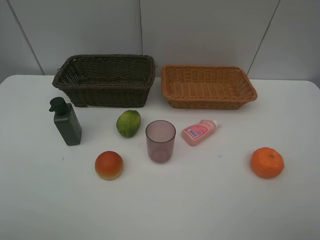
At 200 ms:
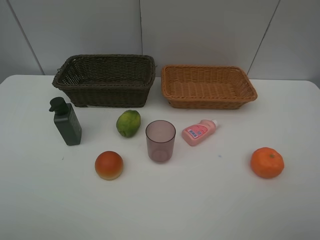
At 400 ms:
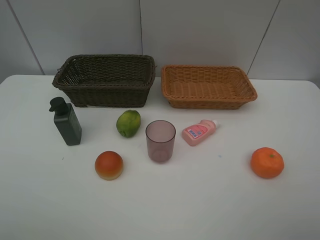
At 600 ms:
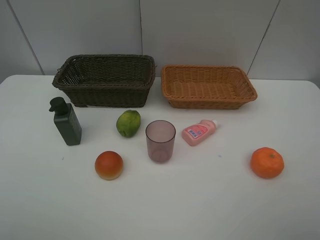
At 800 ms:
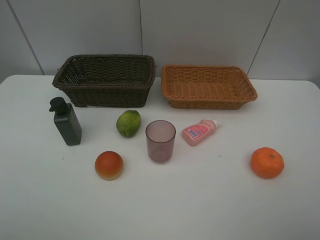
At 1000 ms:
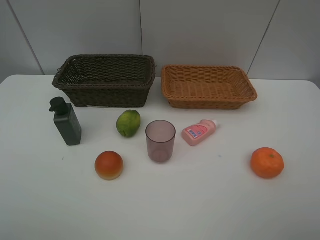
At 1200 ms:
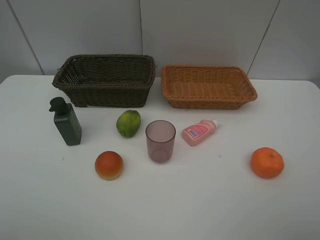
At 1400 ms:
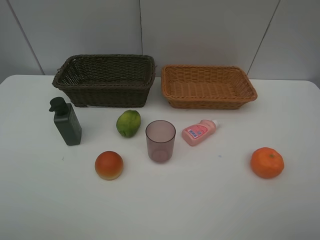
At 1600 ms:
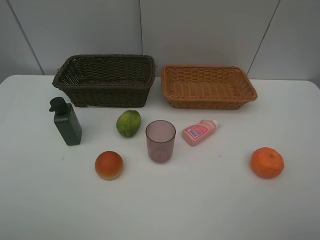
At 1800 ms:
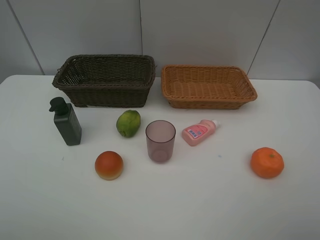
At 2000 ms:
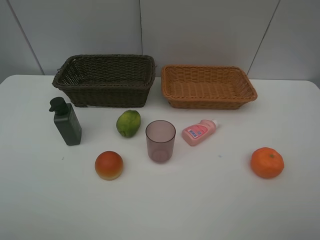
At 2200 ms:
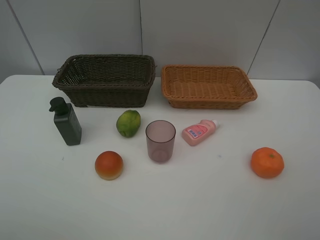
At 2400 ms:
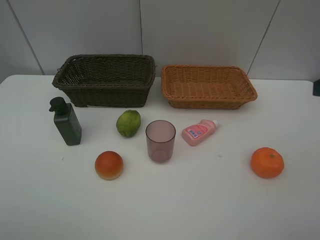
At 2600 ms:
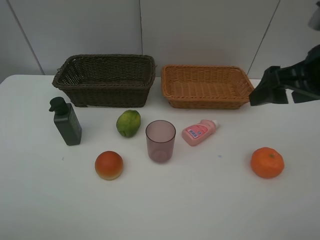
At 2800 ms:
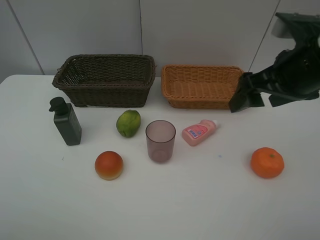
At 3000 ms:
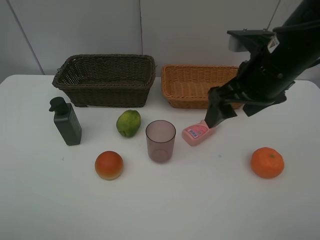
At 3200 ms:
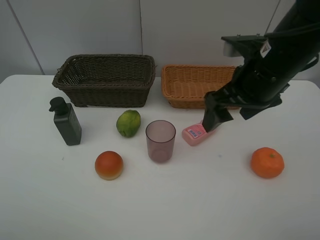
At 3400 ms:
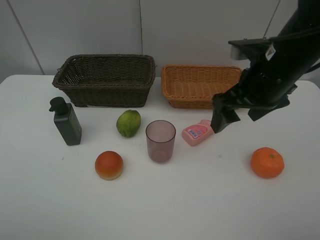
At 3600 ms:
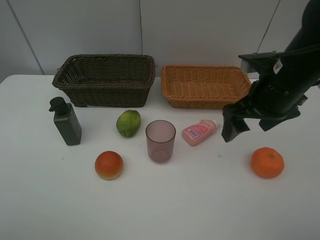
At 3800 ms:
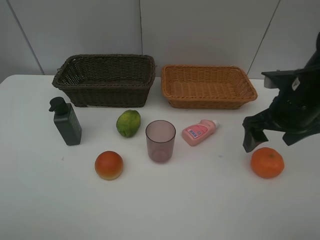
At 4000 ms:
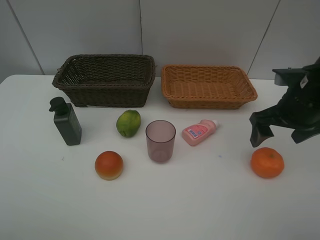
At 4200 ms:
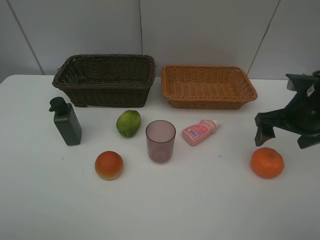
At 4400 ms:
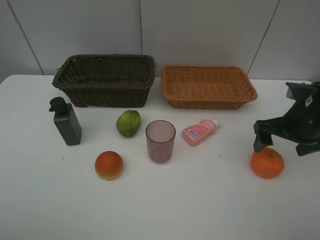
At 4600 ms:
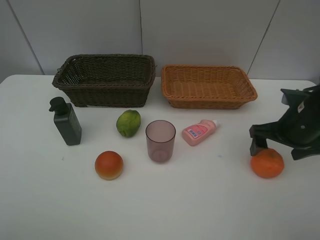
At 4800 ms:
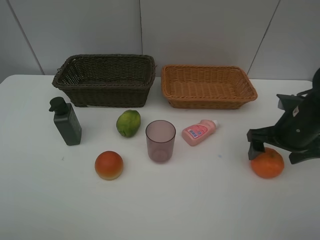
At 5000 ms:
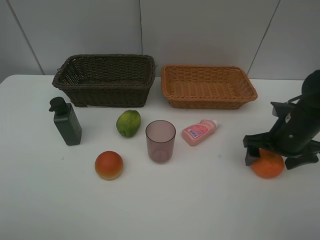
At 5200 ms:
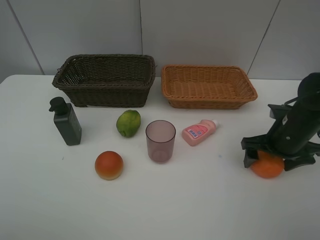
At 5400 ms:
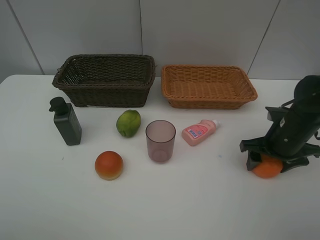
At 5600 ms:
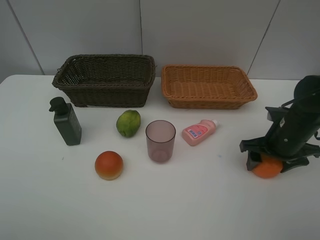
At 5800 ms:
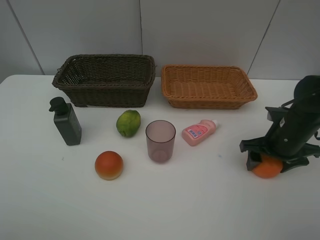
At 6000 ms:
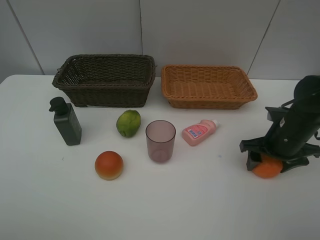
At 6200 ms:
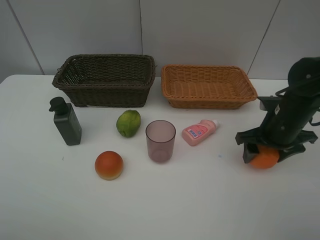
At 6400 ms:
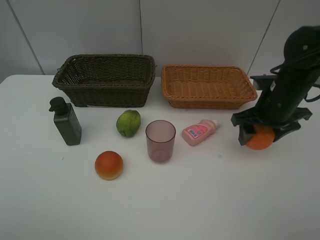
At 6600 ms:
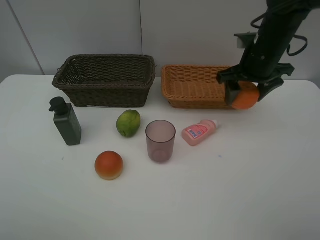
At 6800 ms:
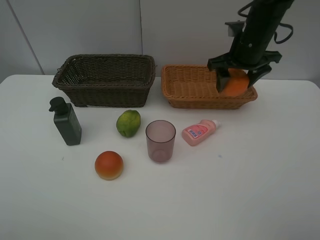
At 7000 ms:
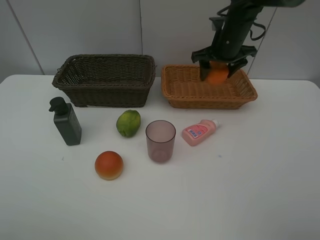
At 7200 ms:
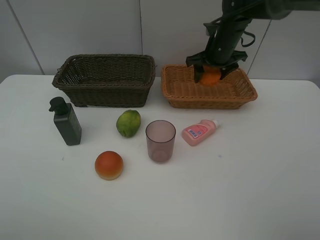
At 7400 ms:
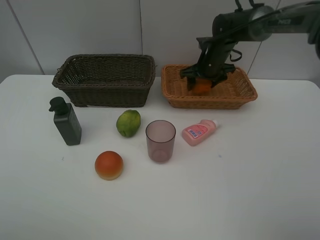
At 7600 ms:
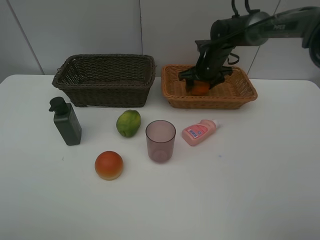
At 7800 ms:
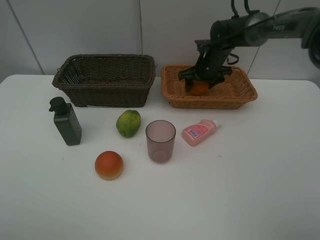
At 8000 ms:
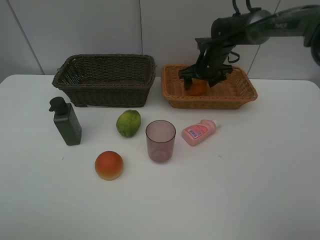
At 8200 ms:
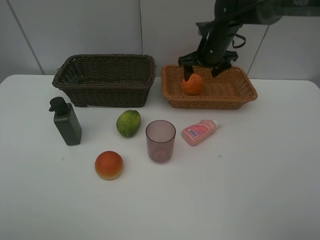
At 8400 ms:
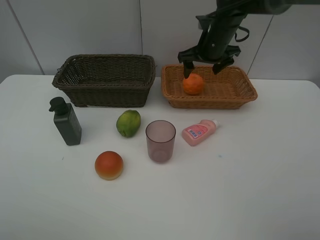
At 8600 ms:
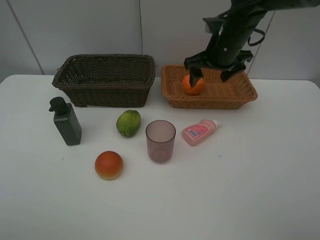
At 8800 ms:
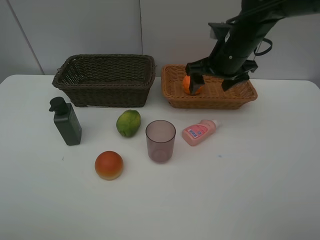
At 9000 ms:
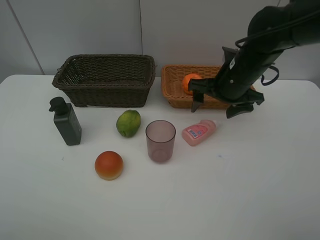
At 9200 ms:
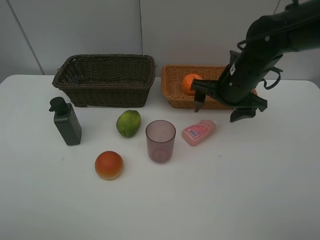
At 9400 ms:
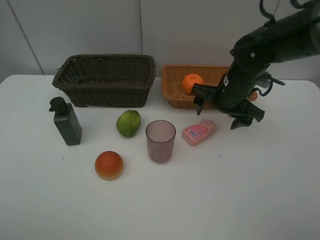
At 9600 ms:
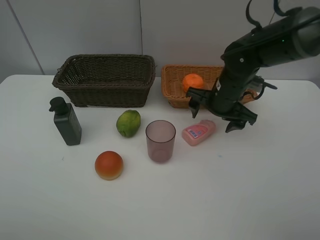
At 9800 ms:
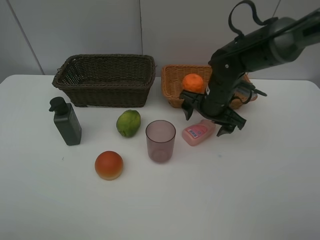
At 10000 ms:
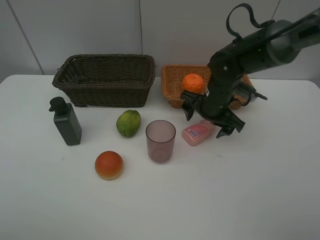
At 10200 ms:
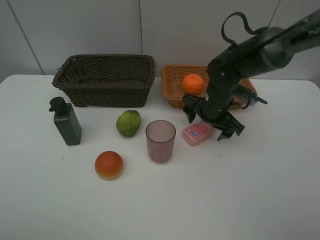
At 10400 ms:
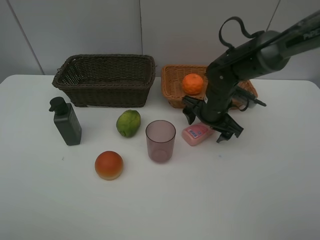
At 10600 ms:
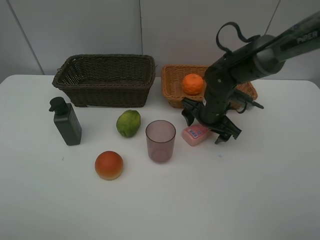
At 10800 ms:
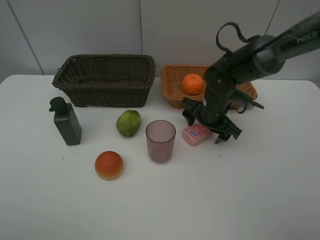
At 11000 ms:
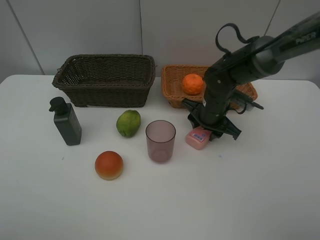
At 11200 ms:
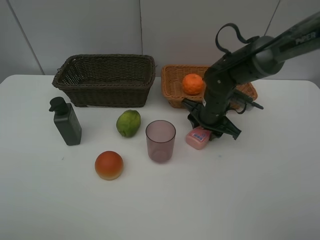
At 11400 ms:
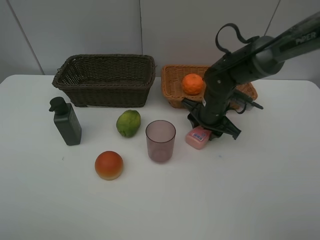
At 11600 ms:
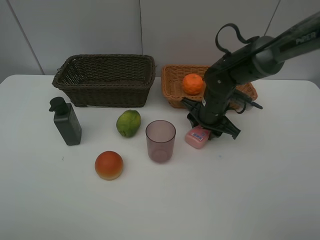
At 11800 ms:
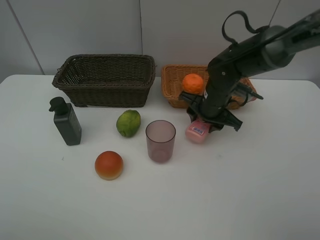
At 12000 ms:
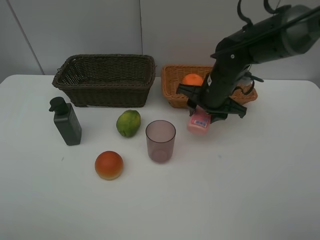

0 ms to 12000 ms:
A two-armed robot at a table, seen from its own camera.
Task of the whole recording: place multiple objects separately in different baskets.
0 ms to 1600 ms: Both grippers stay about where they are.
1600 ms to 3000 ms: The right gripper is displaced forward and to the left by about 30 cm.
3000 ms to 4400 ms: The right gripper is displaced to the right and downward by approximately 15 cm.
4400 ms to 6000 ms: The right gripper goes about 5 cm downward, and closes up.
6000 ms to 7600 ms: The right gripper is displaced forward and to the left by approximately 25 cm.
7600 ms to 9000 ms: The right gripper travels backward by approximately 15 cm, and opens its fingers.
9000 ms to 10400 ms: The right gripper heads downward, covering approximately 10 cm.
10400 ms to 12000 ms: The right gripper goes roughly 5 cm upward, and closes up.

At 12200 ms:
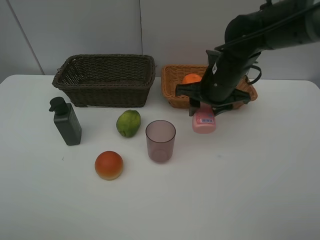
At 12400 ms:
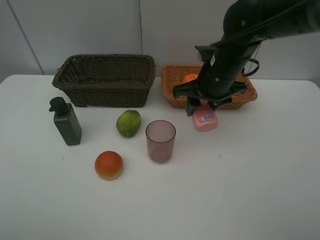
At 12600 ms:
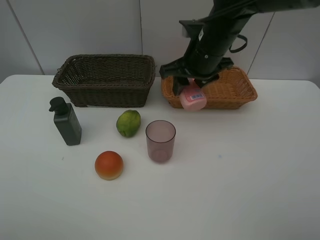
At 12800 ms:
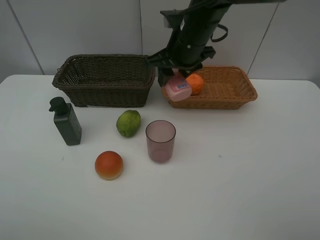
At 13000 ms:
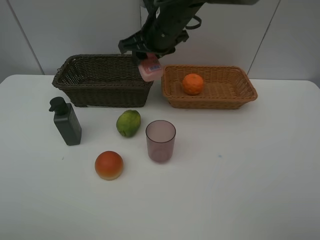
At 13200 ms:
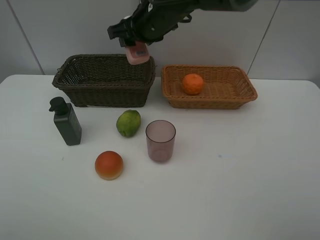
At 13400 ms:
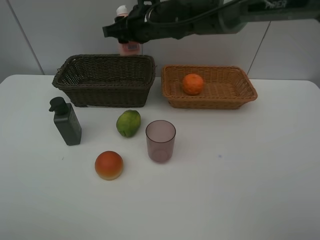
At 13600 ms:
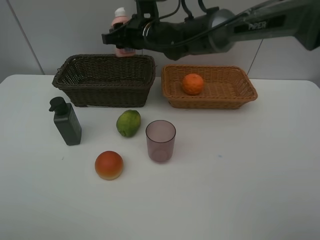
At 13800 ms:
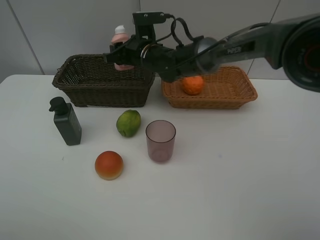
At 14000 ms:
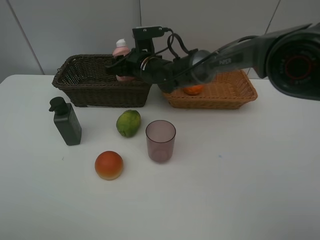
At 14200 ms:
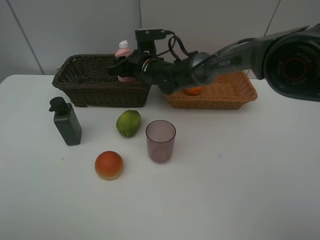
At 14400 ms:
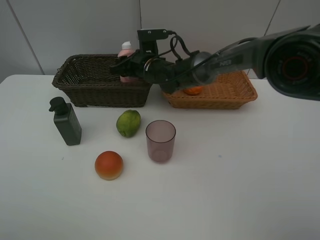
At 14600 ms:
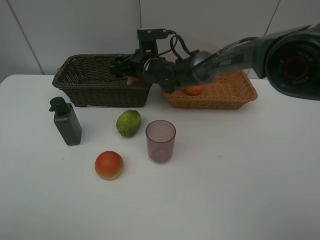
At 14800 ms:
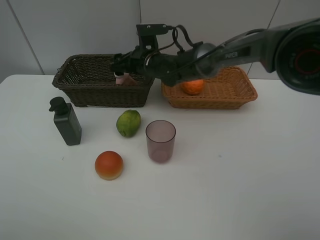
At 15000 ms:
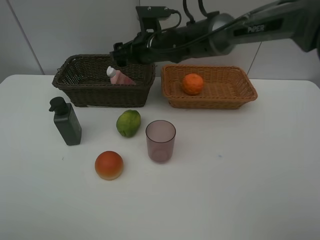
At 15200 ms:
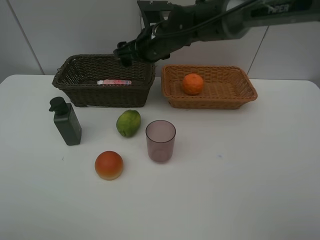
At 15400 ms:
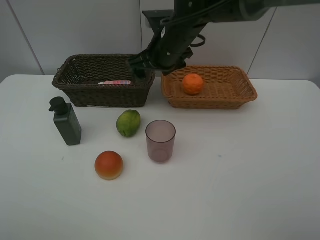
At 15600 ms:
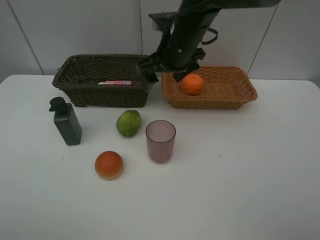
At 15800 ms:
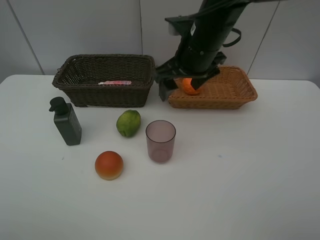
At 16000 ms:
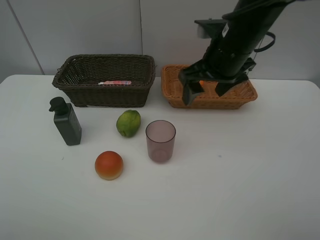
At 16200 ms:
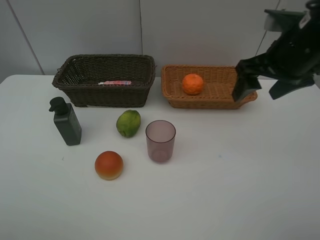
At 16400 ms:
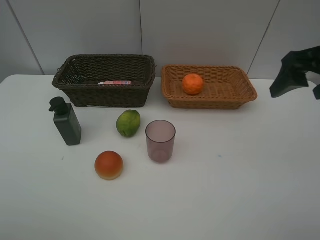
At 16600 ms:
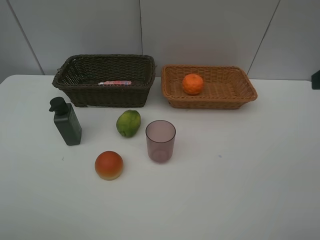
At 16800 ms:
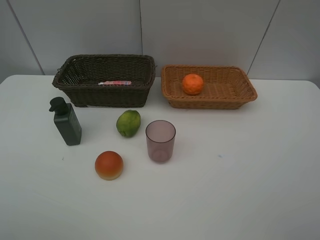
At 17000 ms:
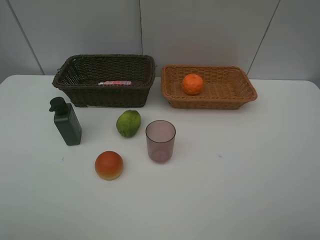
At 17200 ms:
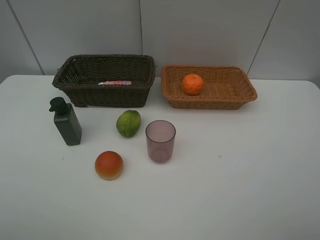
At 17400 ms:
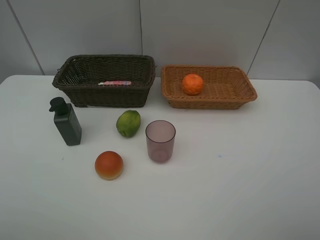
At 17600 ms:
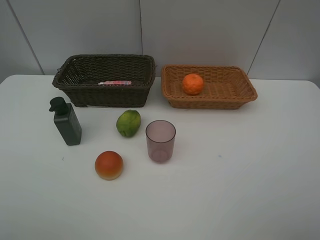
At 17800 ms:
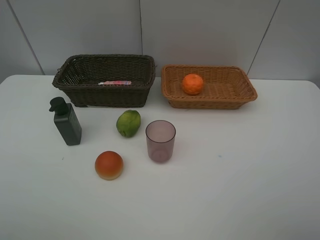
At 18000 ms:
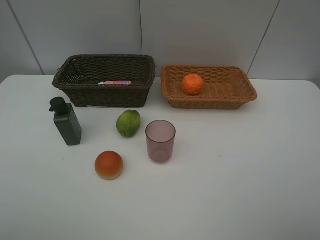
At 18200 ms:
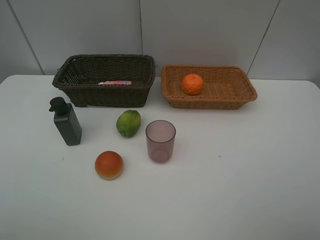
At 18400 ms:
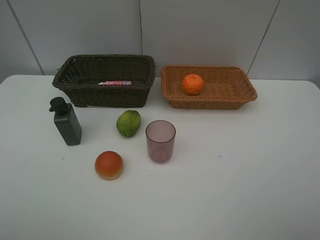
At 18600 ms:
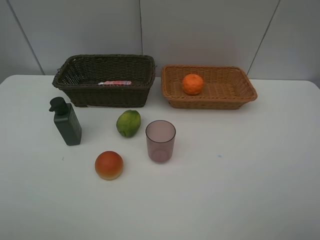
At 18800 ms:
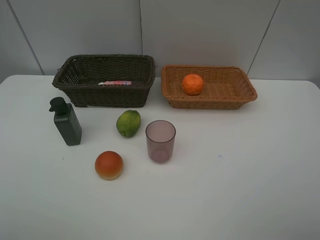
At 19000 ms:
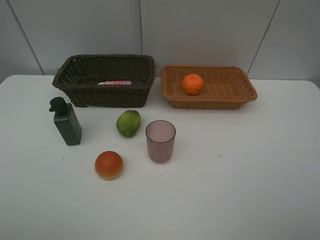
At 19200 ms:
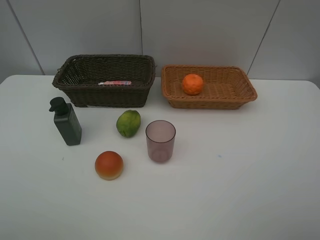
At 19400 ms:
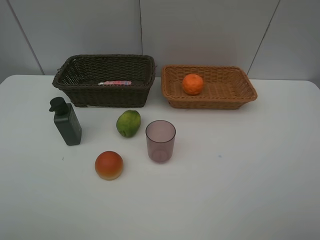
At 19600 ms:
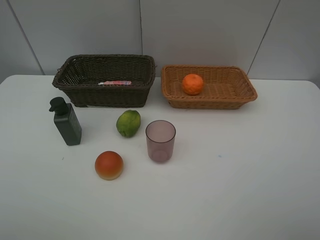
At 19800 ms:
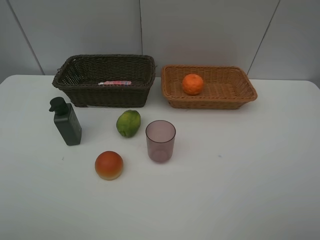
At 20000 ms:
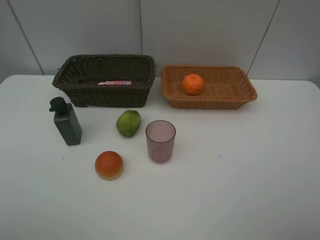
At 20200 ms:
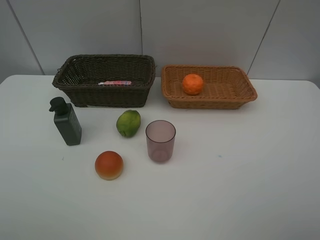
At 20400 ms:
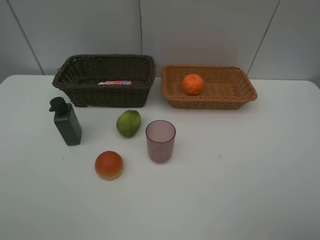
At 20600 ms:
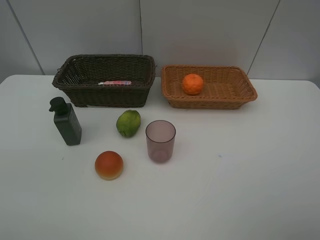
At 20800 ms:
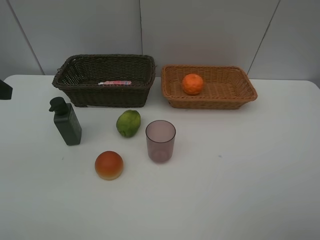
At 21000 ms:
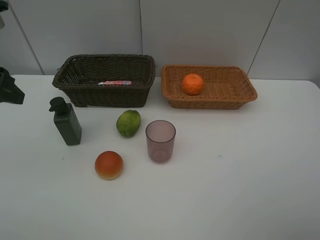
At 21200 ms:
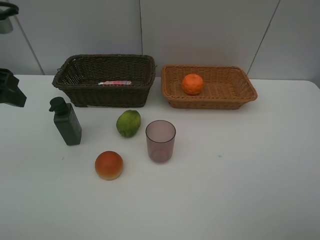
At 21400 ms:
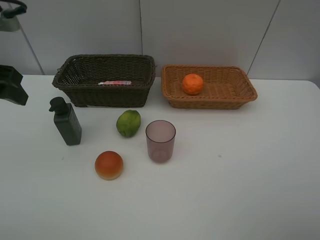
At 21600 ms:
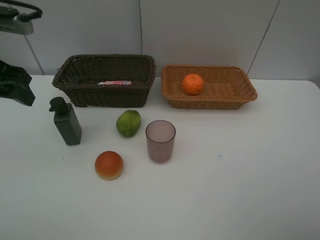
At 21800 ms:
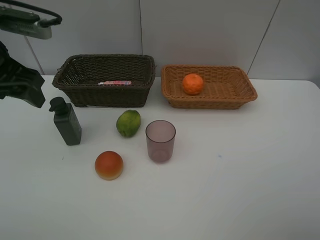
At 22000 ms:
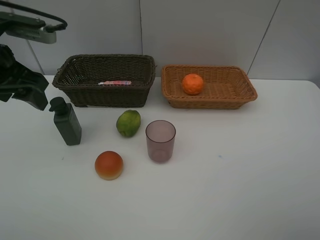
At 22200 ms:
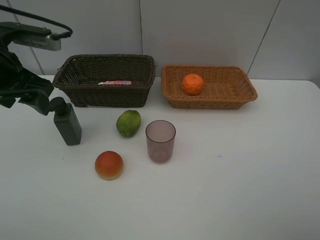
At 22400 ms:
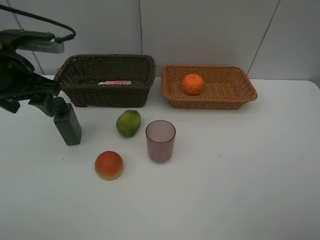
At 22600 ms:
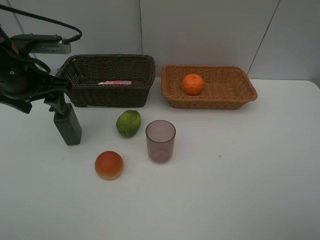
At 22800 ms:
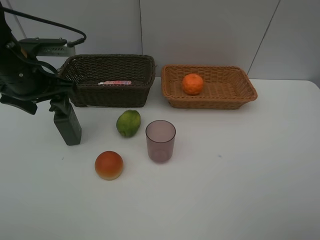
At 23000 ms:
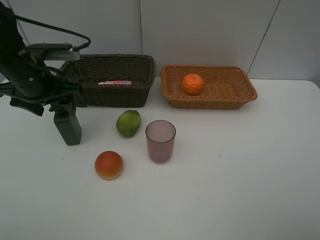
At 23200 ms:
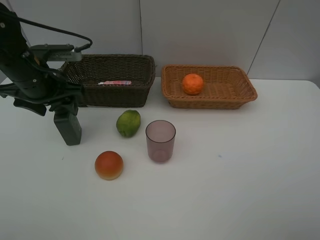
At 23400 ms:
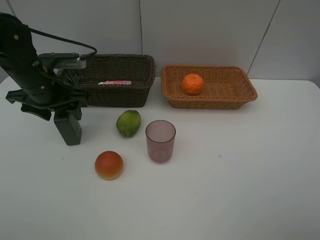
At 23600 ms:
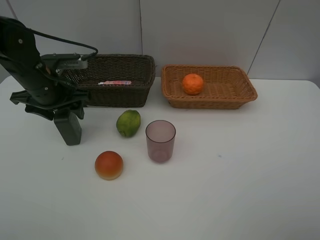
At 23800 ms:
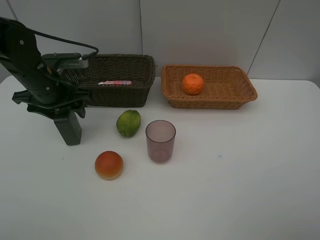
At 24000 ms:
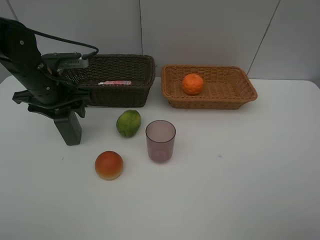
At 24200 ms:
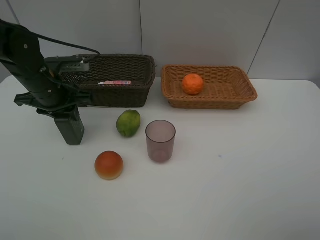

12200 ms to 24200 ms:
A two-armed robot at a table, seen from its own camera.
Task of the whole recording: place multiple objects separately in different baskets.
12200 ms to 13800 ms: The right gripper heads to the left and forward, covering about 20 cm.
13800 ms to 15200 ms: The right gripper shifts approximately 5 cm upward, and opens up.
15200 ms to 16600 ms: The right gripper moves backward, to the right and upward, about 40 cm.
18200 ms to 19800 ms: Both grippers stay put.
19800 ms to 21200 ms: The left gripper travels forward by some 20 cm.
21200 ms to 22600 ms: The left gripper is displaced forward and downward by some 10 cm.
22600 ms to 24200 ms: The left gripper heads downward, covering approximately 5 cm, and closes.
